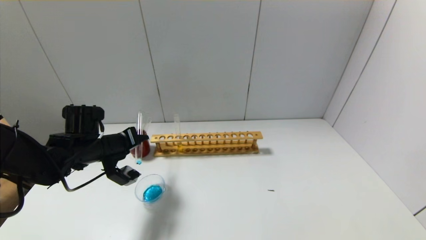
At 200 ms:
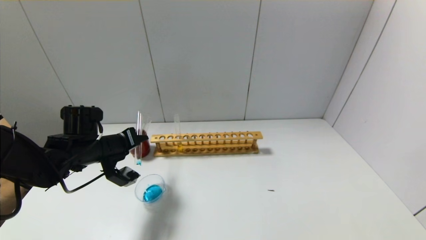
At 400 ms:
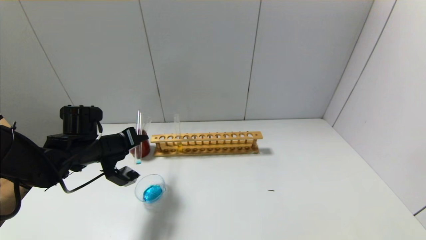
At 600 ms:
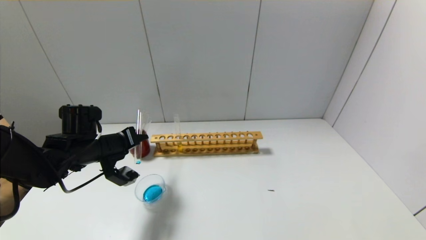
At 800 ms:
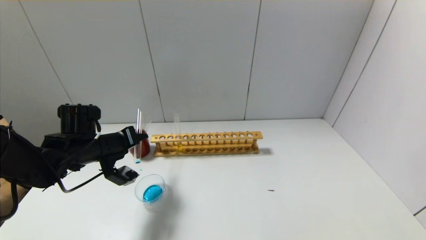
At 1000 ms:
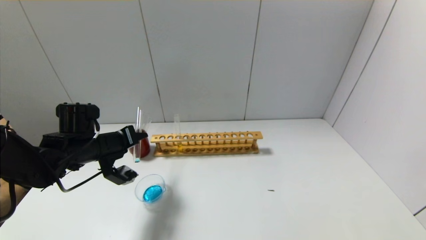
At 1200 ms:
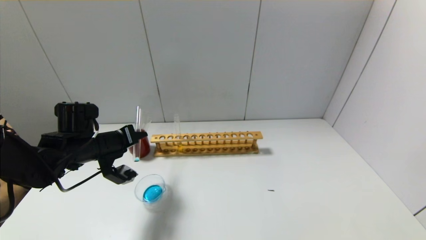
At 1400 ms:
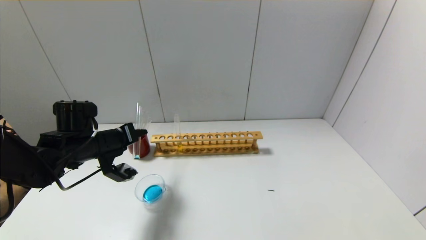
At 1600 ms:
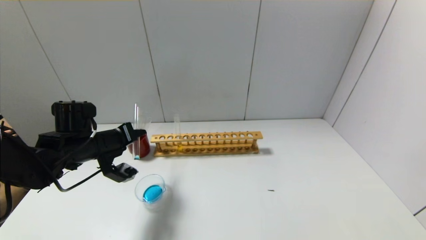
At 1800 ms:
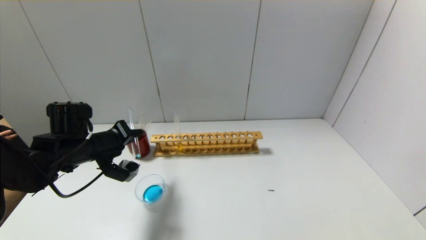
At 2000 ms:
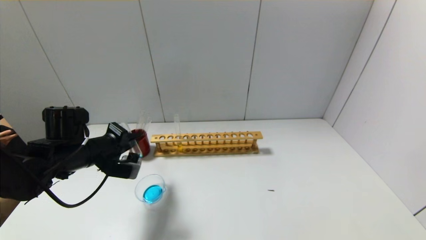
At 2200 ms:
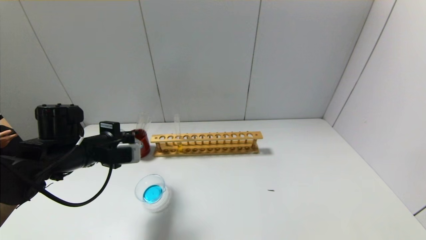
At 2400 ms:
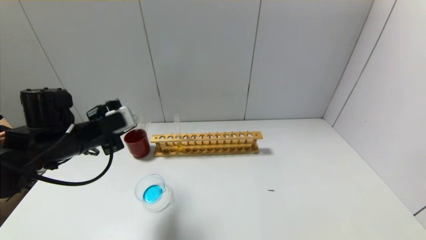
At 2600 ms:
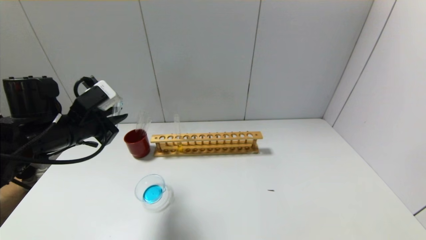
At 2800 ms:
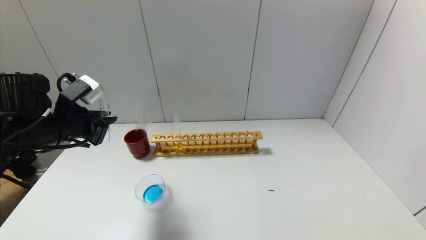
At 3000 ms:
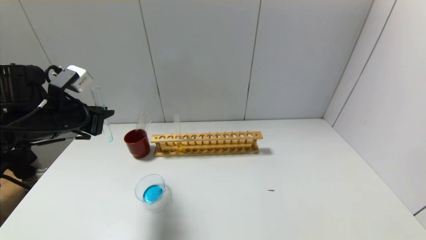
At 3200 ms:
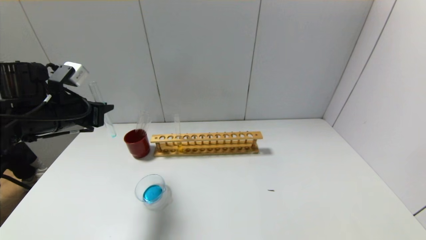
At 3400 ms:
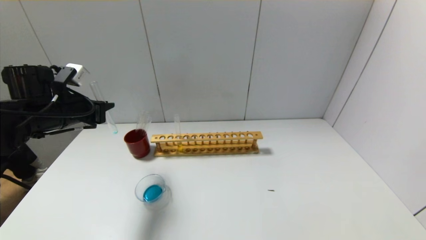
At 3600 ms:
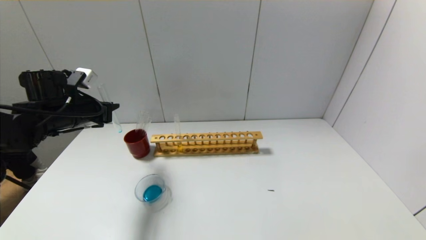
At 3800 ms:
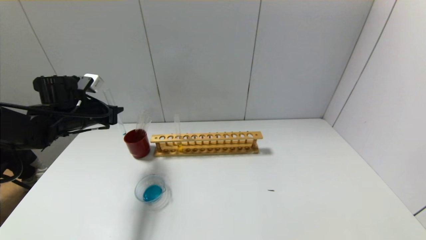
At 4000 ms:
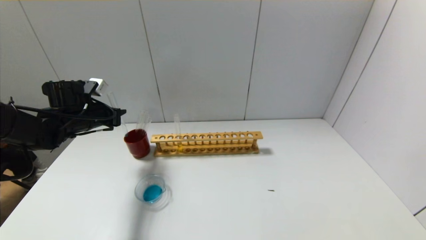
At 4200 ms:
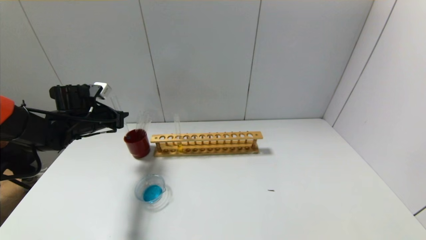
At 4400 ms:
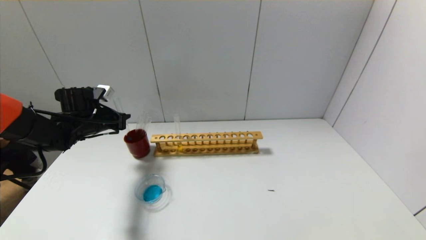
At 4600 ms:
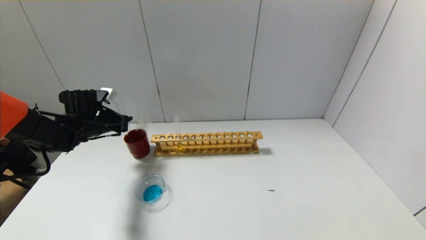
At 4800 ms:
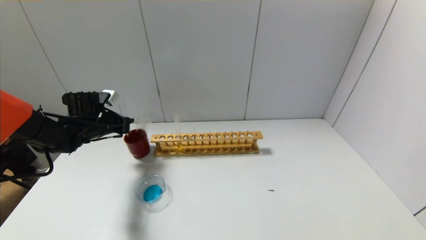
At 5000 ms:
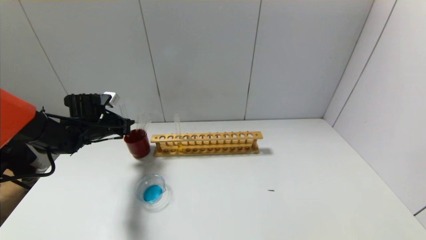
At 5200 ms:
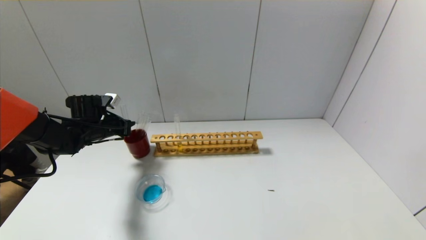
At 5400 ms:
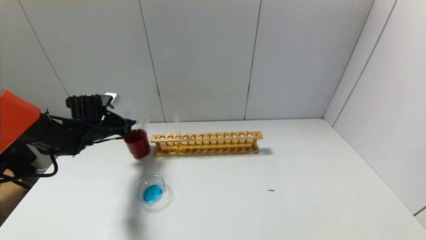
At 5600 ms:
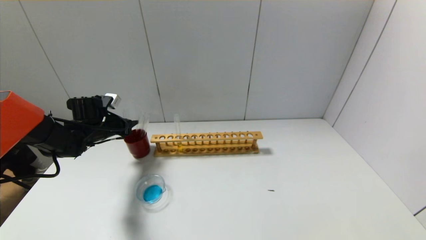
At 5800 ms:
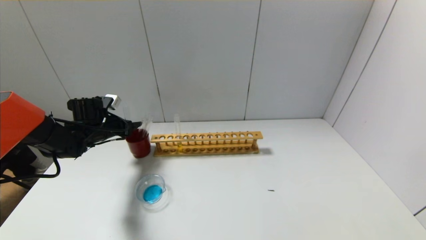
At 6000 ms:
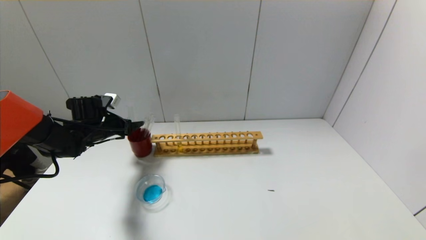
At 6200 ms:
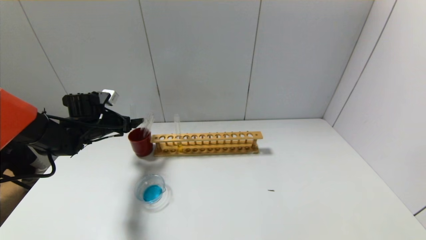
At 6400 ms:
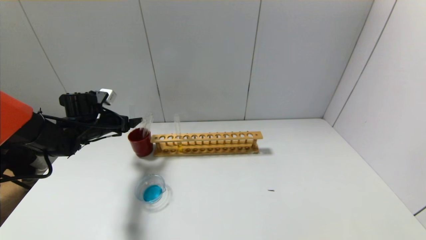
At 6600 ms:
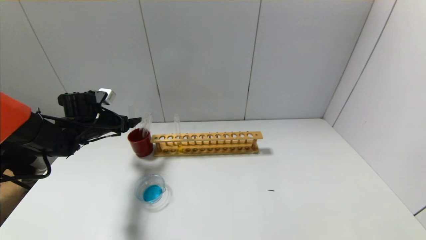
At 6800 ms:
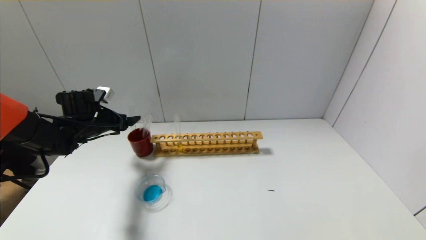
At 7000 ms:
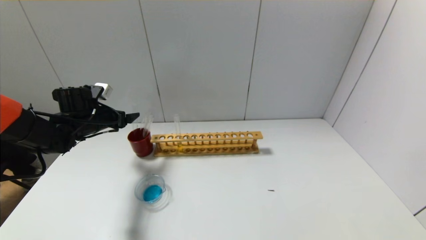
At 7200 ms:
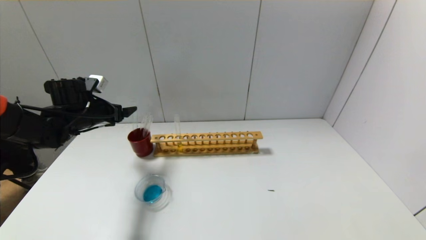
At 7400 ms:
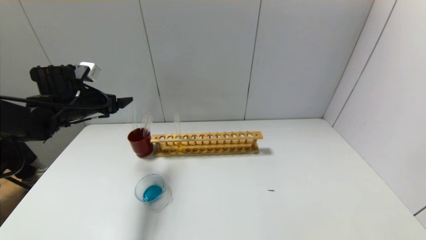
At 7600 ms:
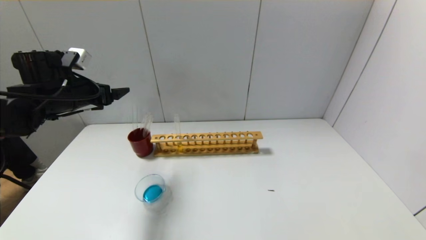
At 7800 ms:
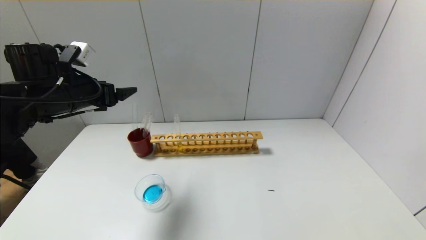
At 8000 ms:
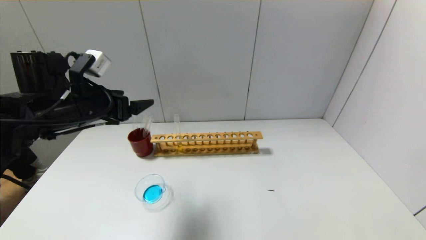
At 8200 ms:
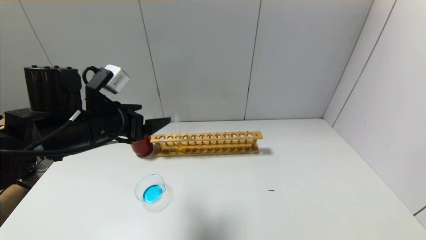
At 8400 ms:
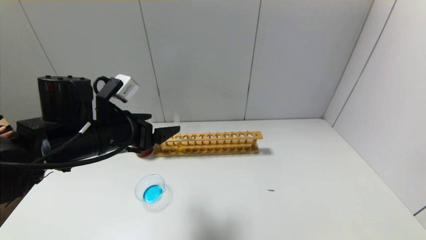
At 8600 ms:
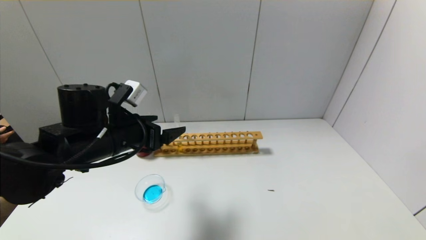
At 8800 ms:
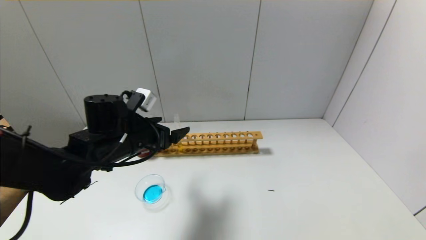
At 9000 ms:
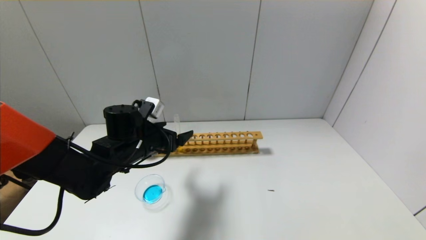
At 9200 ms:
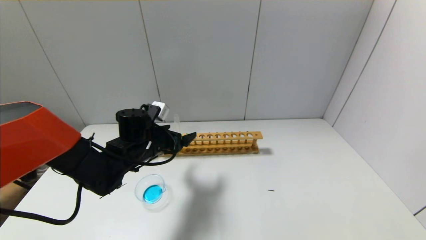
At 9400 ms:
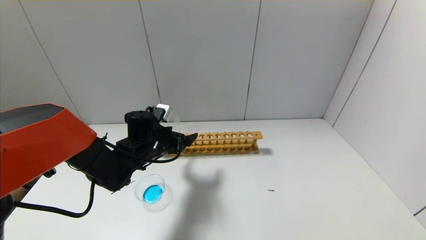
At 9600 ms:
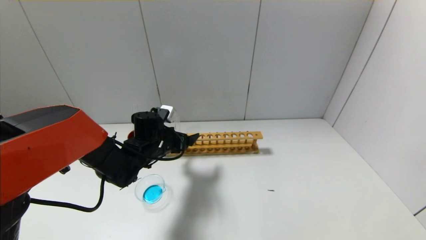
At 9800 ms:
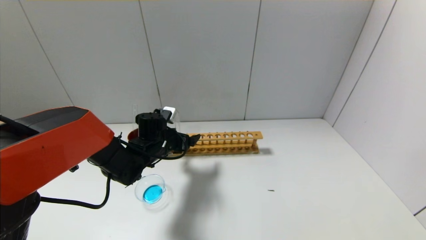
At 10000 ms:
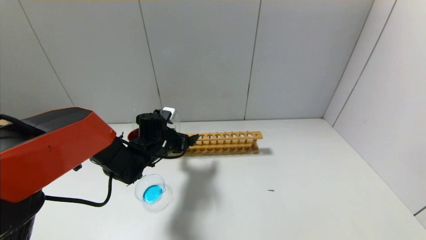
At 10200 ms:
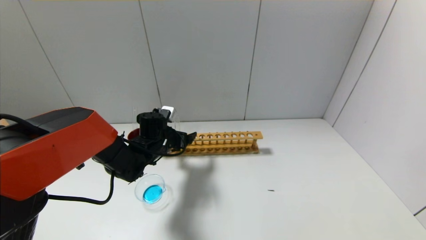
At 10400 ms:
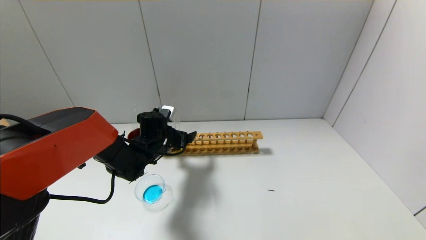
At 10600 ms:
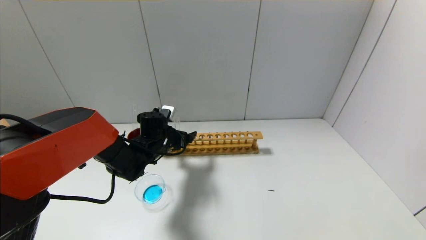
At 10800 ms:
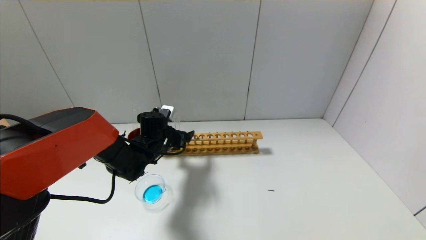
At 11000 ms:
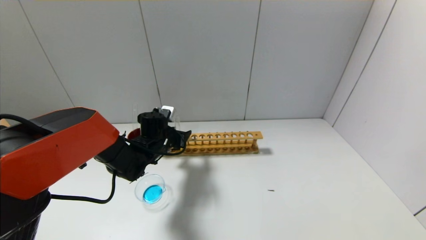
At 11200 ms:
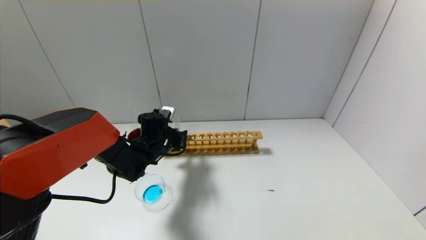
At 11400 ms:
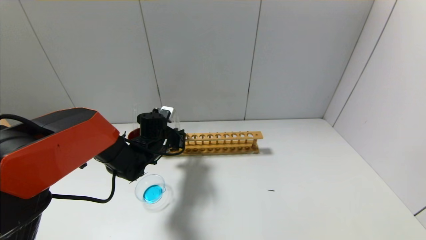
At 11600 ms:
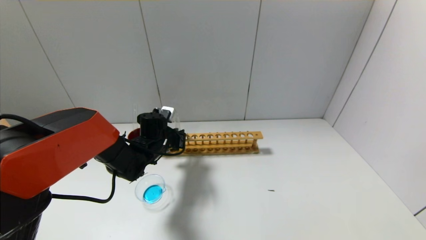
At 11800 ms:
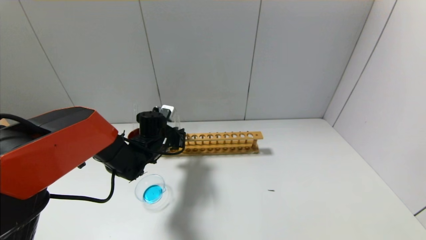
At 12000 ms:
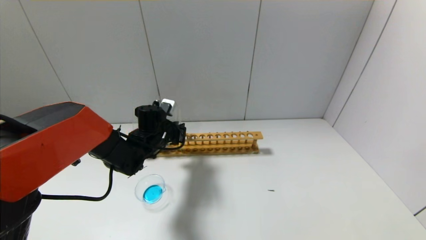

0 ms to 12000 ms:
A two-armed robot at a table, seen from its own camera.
Step, 0 ms to 2200 ms: Pour the blue reagent into the graduated cylinder with the left gripper.
Step, 2400 ms to 5600 ms: Place the test tube into the brown cup with the left gripper.
Step, 5800 ms to 11400 ms: Grasp the yellow reagent with the left gripper.
0 ms to 1600 ms: The grippers make only small movements.
1600 ms to 3000 ms: The left gripper travels upward by approximately 10 cm.
3000 ms to 4400 ms: The left gripper moves forward and downward, about 15 cm.
4400 ms to 6000 ms: The left gripper opens.
6000 ms to 7600 ms: The left gripper shifts approximately 15 cm upward and backward.
7600 ms to 9000 ms: The left gripper travels to the right and downward by roughly 20 cm.
9000 ms to 10400 ms: The left gripper is displaced forward and downward by roughly 10 cm.
10400 ms to 12000 ms: The left gripper closes up.

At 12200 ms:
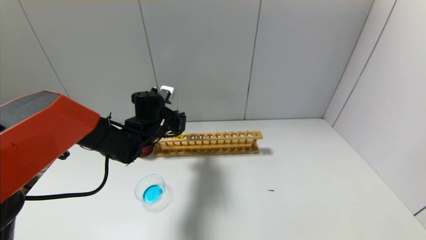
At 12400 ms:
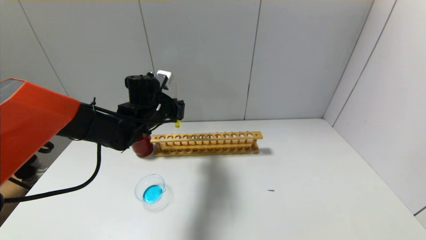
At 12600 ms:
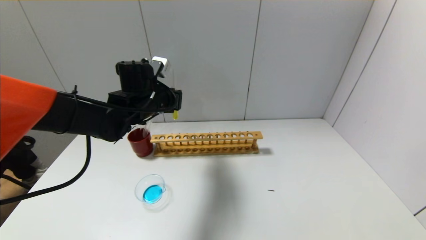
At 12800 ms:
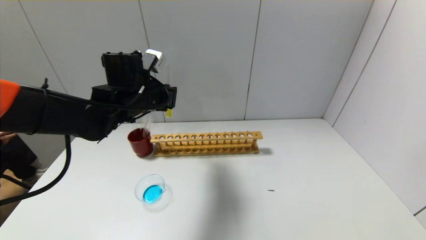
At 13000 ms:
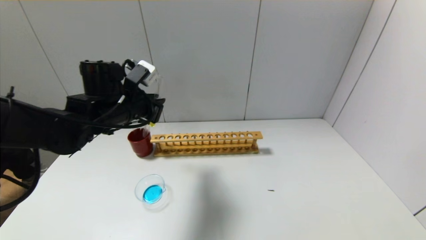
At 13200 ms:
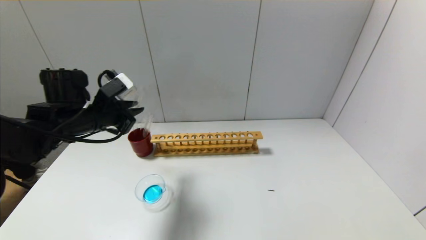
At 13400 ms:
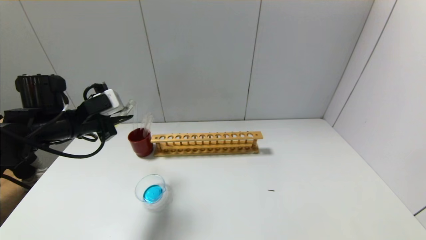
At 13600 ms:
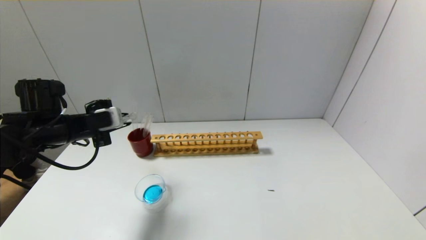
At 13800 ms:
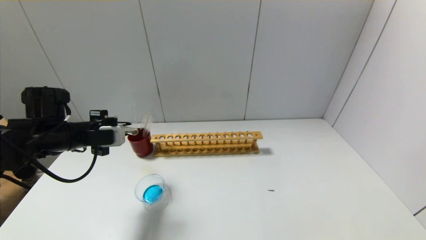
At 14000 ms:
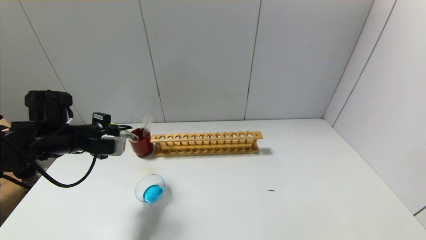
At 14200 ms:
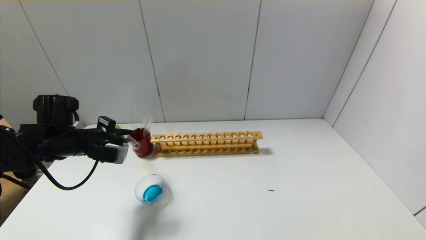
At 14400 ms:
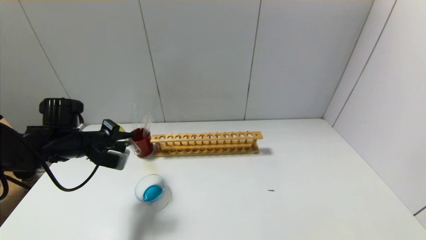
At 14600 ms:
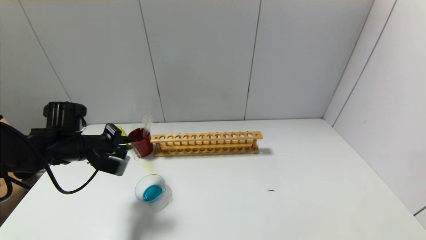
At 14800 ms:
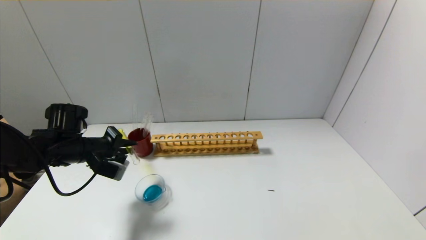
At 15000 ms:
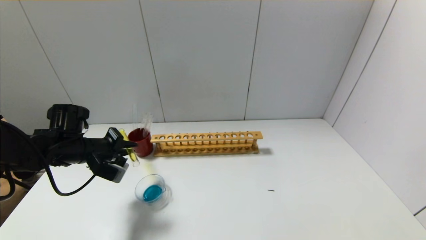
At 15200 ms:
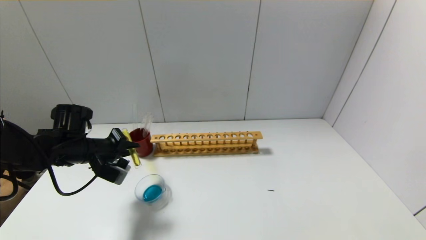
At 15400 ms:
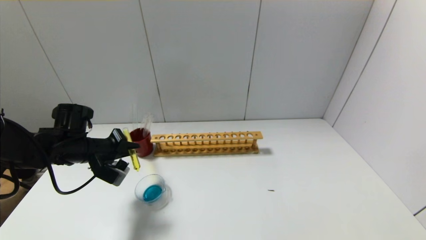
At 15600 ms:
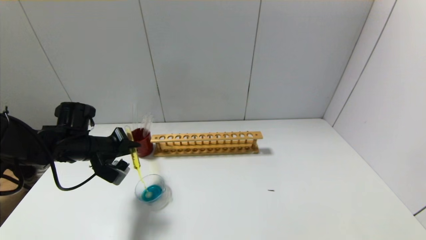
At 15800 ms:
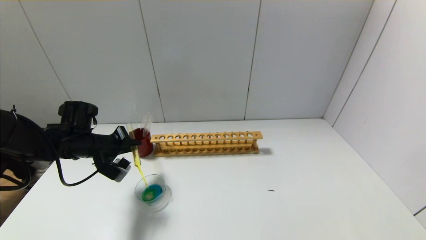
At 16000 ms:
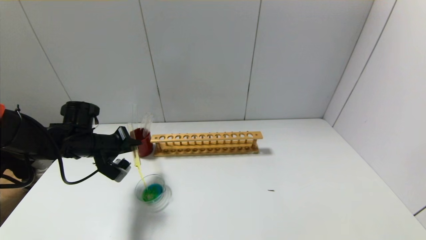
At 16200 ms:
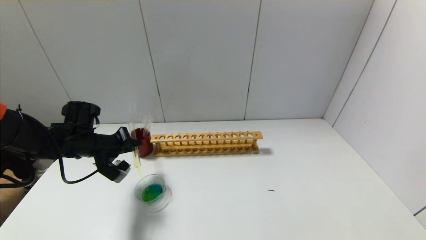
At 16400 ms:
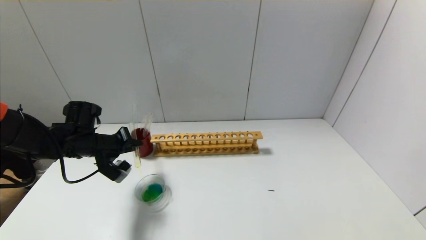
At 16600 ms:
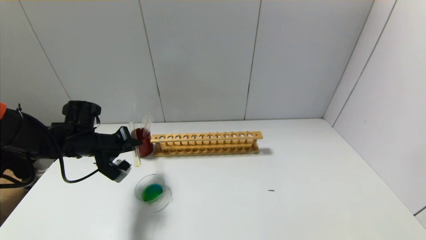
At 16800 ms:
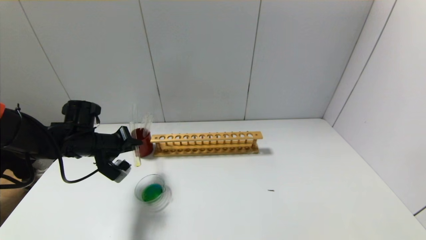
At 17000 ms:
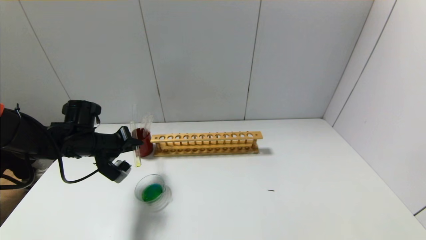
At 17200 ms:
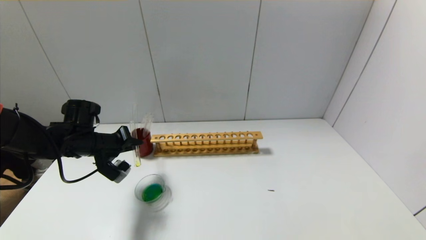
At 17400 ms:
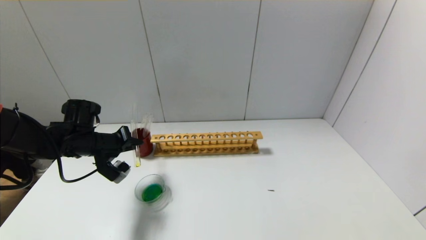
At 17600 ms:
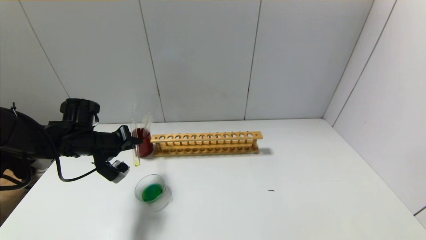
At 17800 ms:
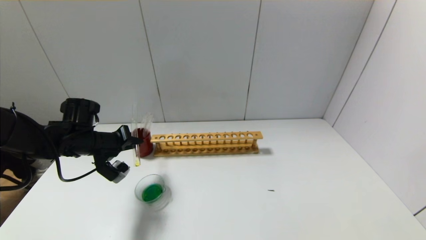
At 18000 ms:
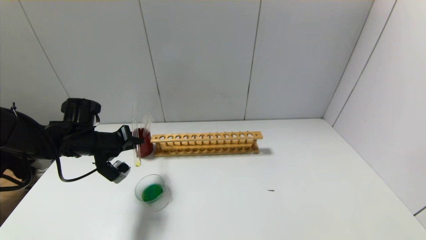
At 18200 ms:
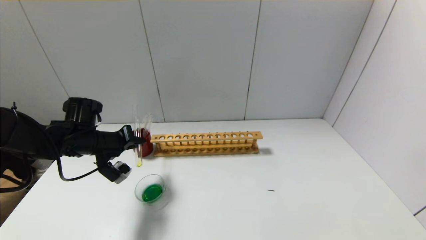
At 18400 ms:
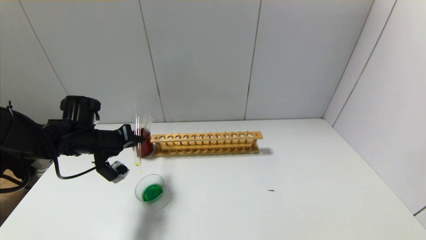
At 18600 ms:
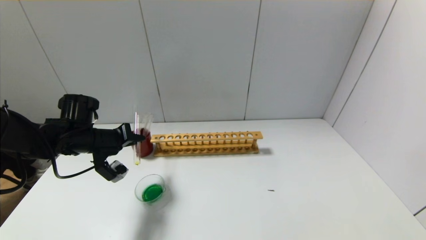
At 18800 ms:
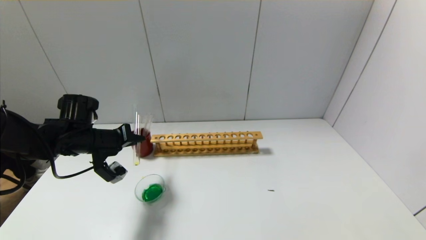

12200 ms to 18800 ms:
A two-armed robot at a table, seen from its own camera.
12200 ms to 13800 ms: The left gripper moves to the left and backward, approximately 20 cm.
13800 ms to 15400 ms: The left gripper changes place by some 5 cm.
15400 ms to 17200 ms: The grippers stay close to where they were, moving slightly.
17200 ms to 18800 ms: The grippers make only small movements.
